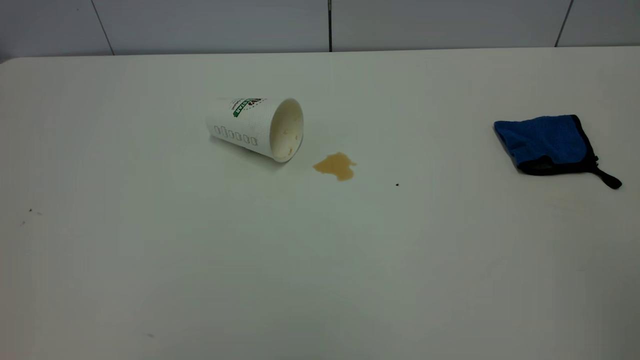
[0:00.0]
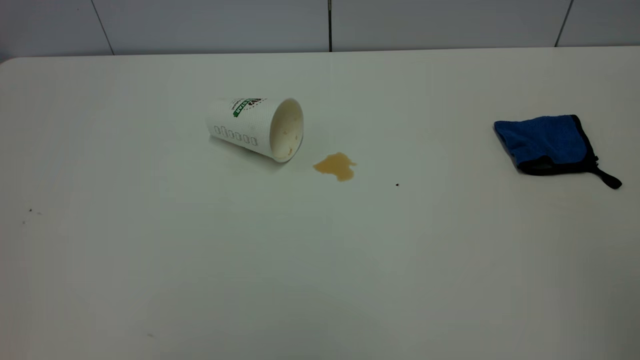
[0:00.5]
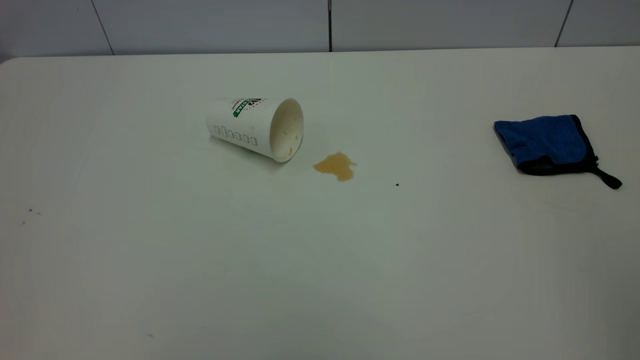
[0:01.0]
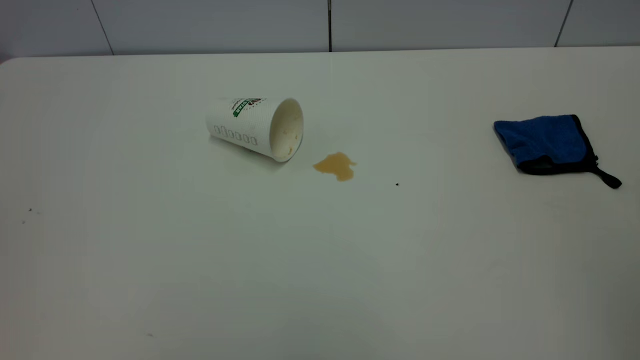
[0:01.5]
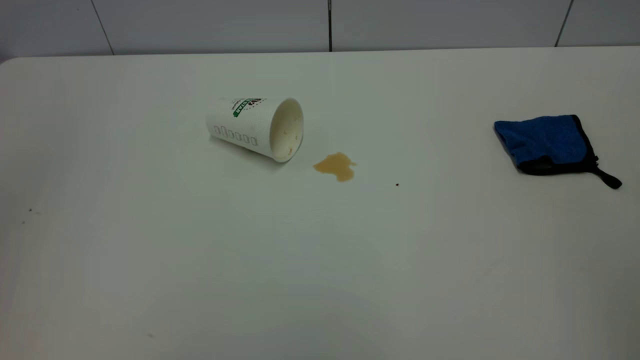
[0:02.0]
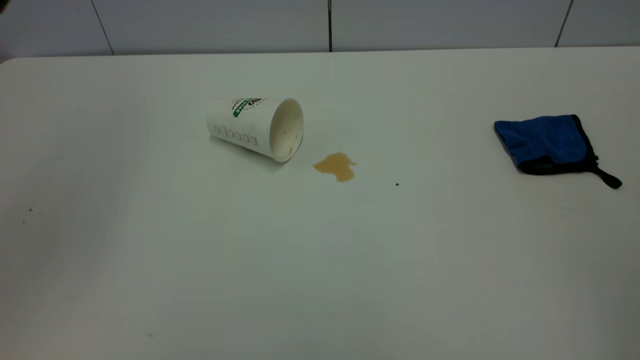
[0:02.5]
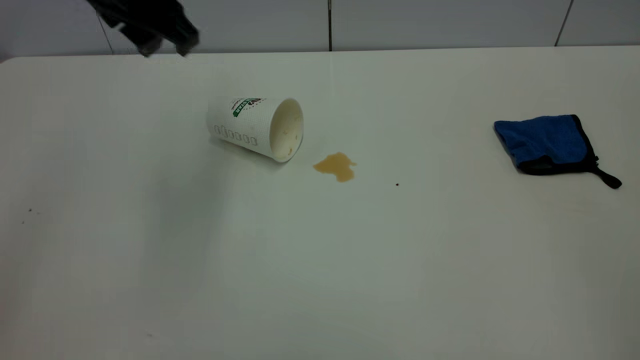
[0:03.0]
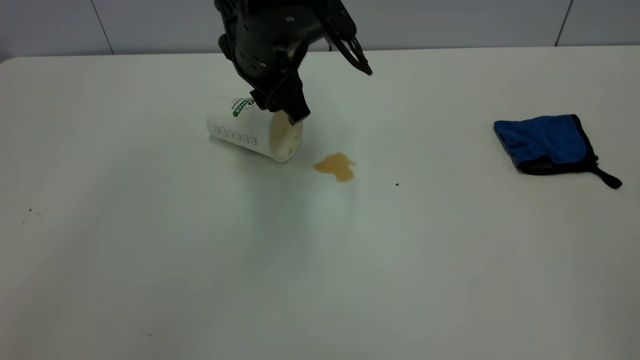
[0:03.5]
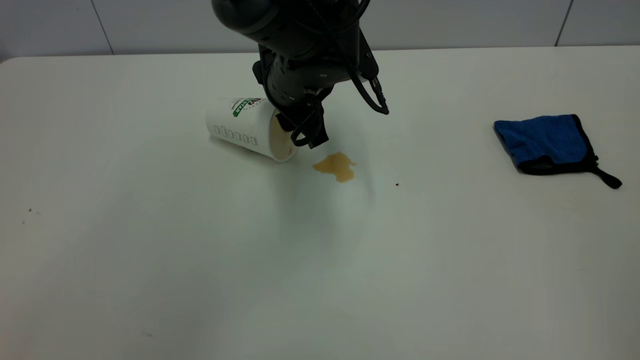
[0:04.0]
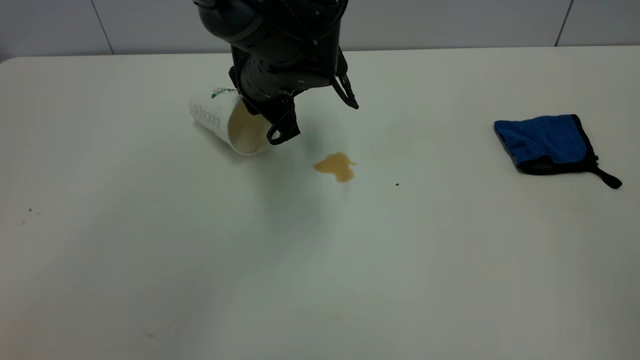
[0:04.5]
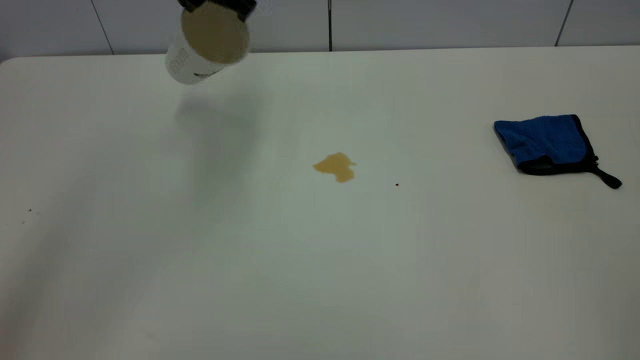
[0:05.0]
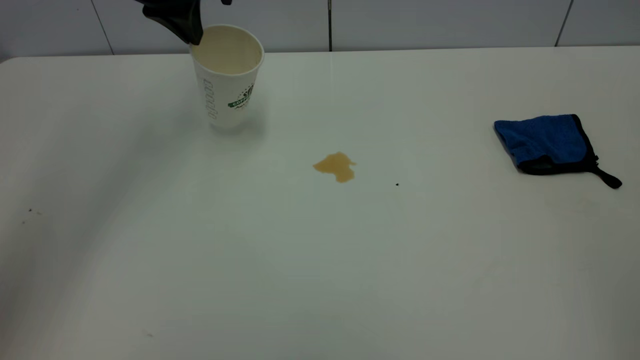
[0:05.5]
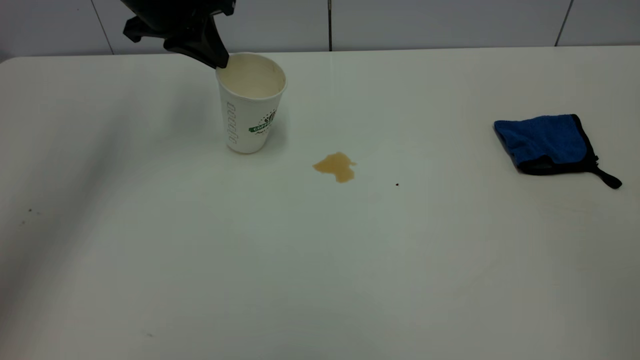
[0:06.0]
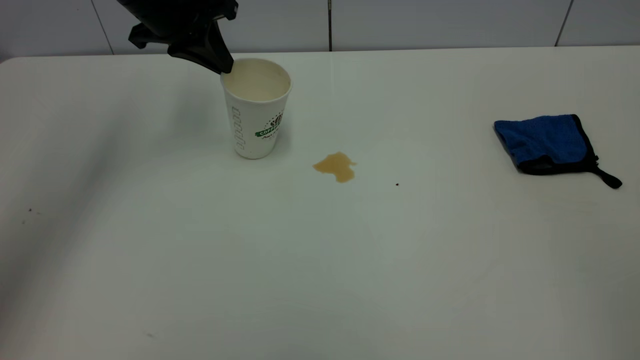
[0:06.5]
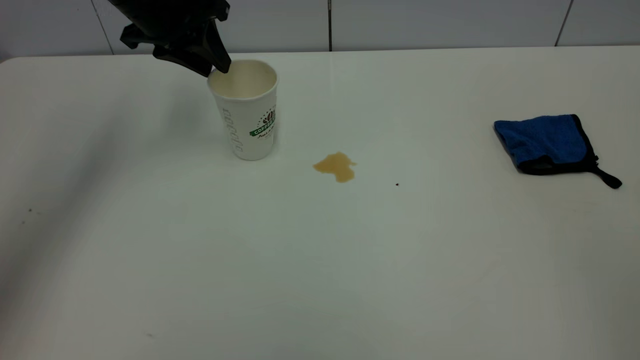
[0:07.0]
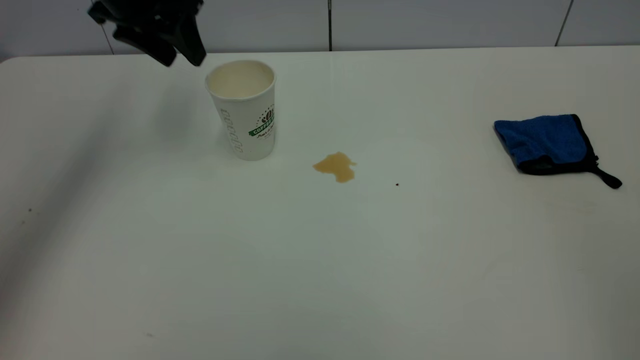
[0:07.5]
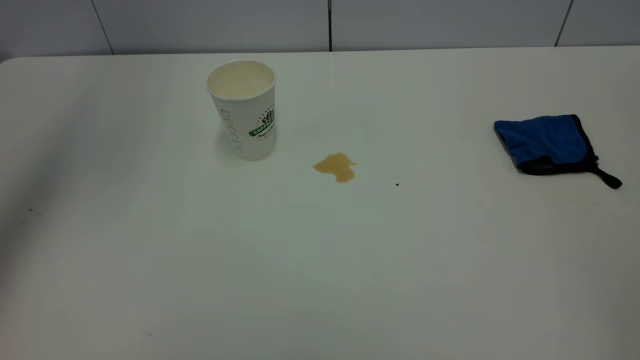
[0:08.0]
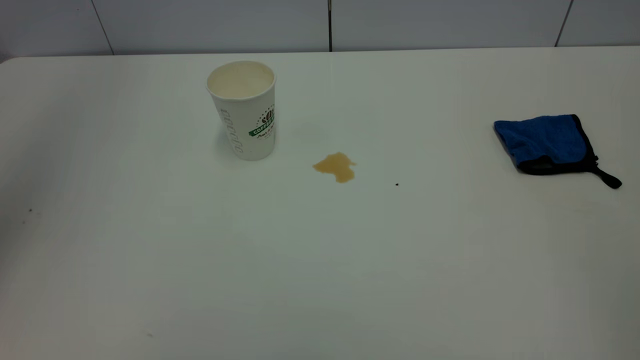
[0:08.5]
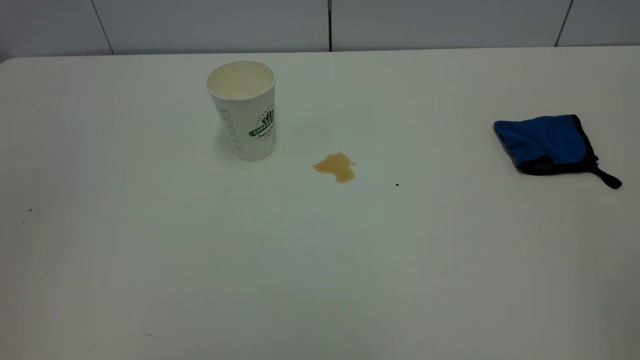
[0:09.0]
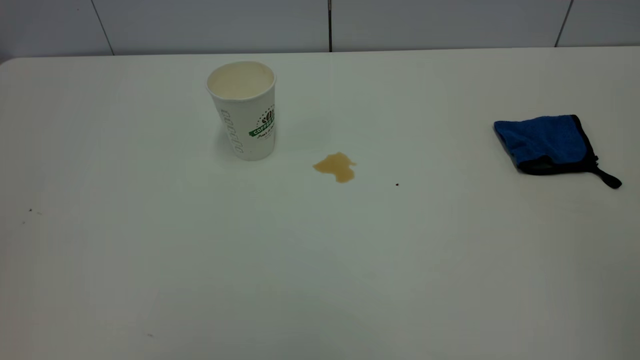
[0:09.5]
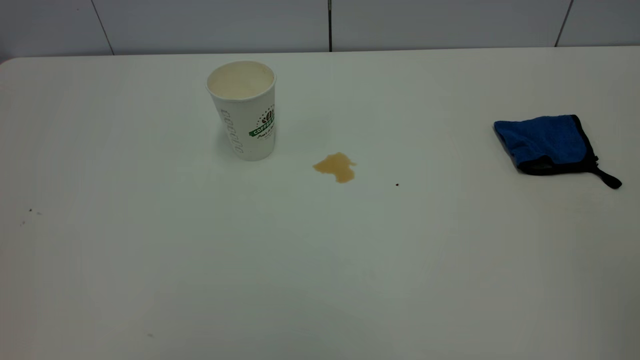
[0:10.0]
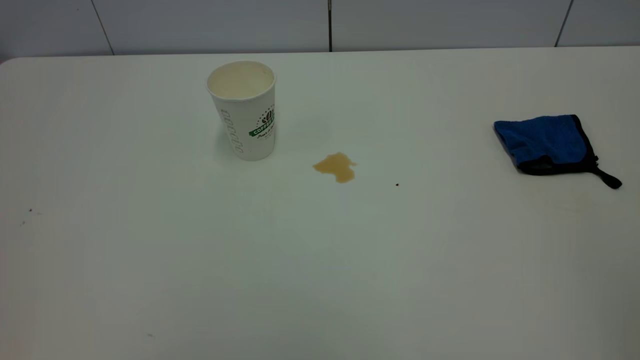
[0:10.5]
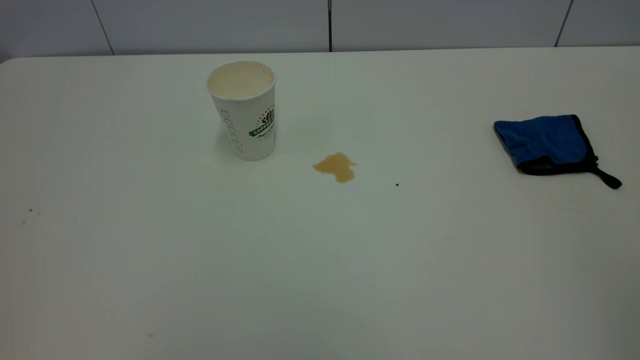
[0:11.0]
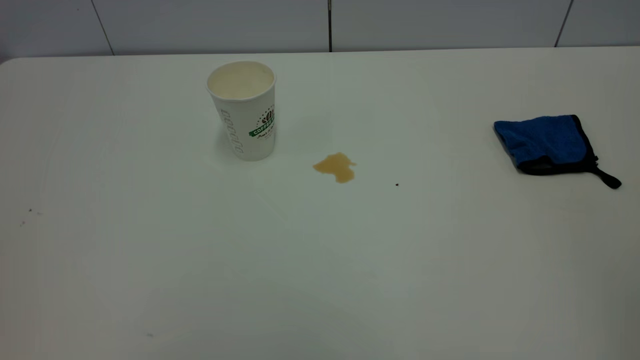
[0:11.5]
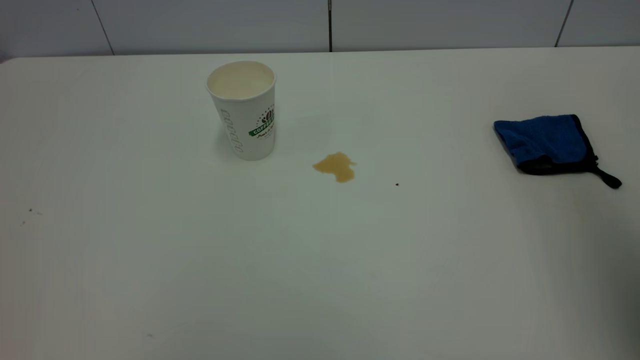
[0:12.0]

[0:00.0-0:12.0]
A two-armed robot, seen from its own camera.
Task of the whole recording: the left gripper pick up the fallen cup and place it upright, the right gripper grasp the blue rag and wipe the tea stain on the table, the right gripper put the blue rag back in its original position.
Step, 0:00.0 to 0:07.0: Stand the paper cup upright.
0:02.0 to 0:04.0: The left gripper travels to the right, downward and forward by about 50 cm.
0:04.0 to 0:06.0: The left gripper is displaced to the left, forward and upward by approximately 20 cm, and closes up.
0:06.0 to 0:08.0: The left gripper goes some 20 cm upward and backward, and opens its fingers.
0:08.0 to 0:10.0: The left gripper moves backward, approximately 40 cm.
0:10.0 to 0:12.0: The right gripper travels forward by roughly 20 cm, and opens up.

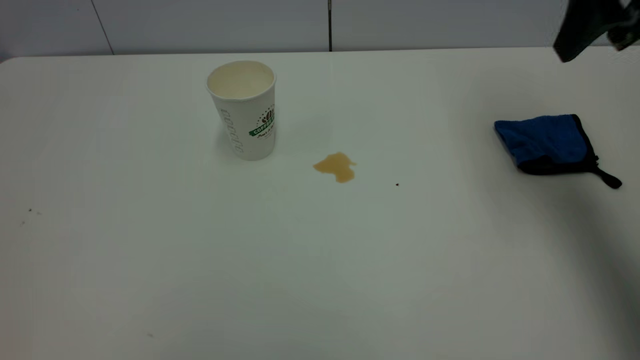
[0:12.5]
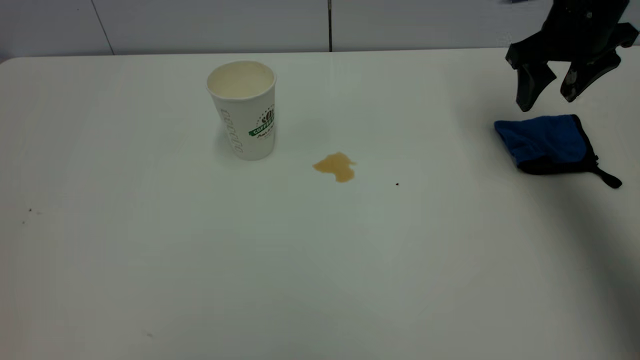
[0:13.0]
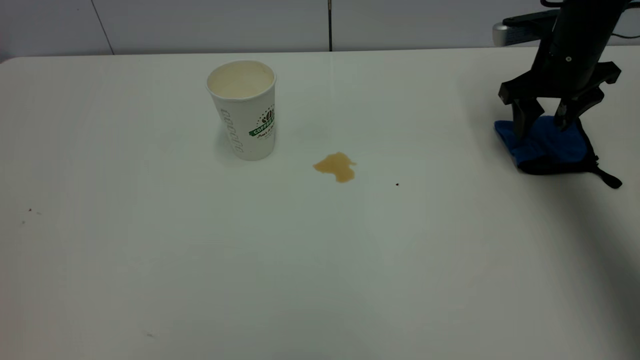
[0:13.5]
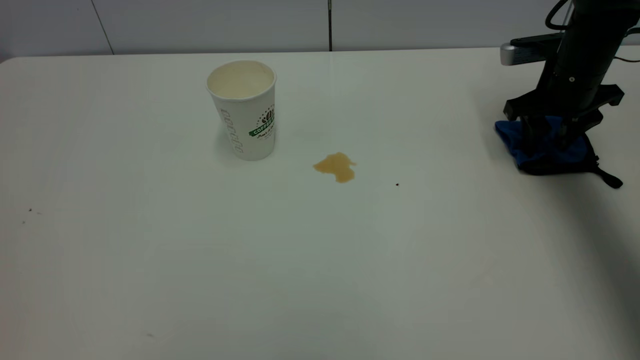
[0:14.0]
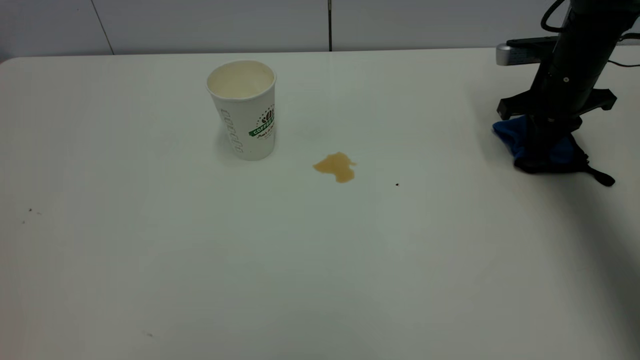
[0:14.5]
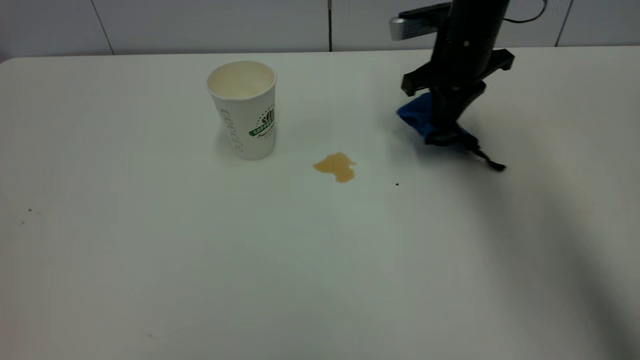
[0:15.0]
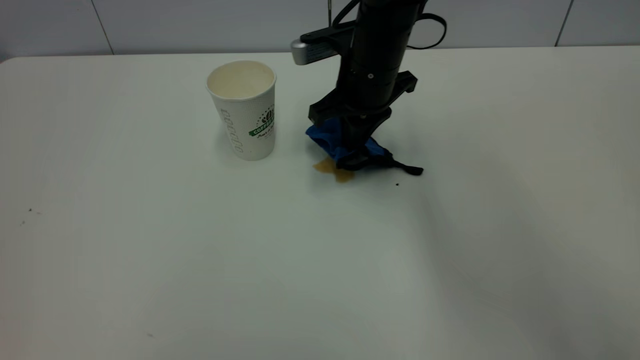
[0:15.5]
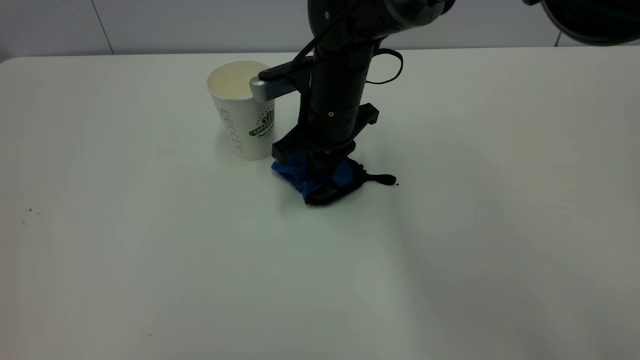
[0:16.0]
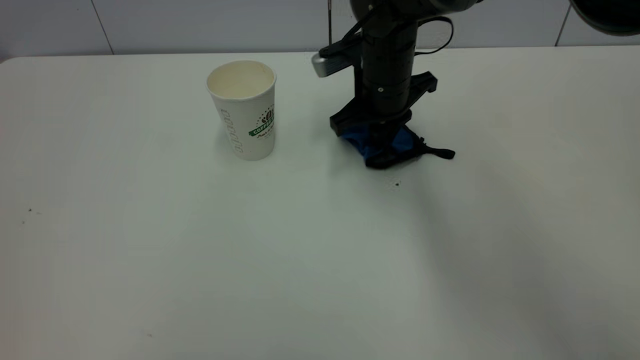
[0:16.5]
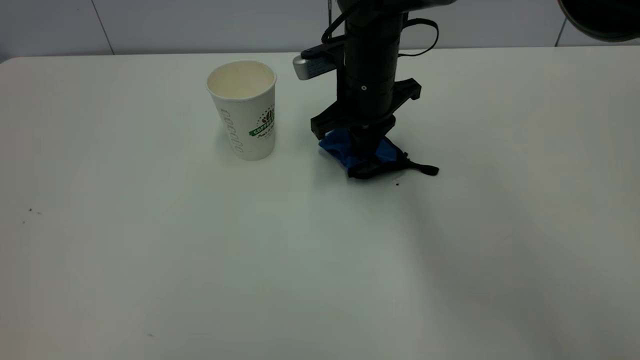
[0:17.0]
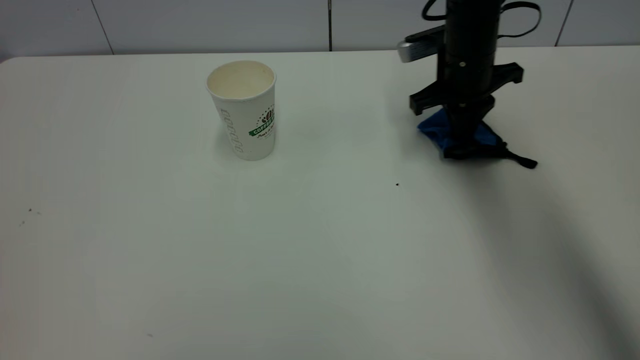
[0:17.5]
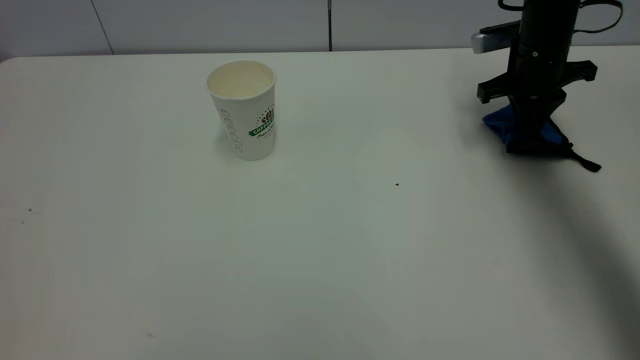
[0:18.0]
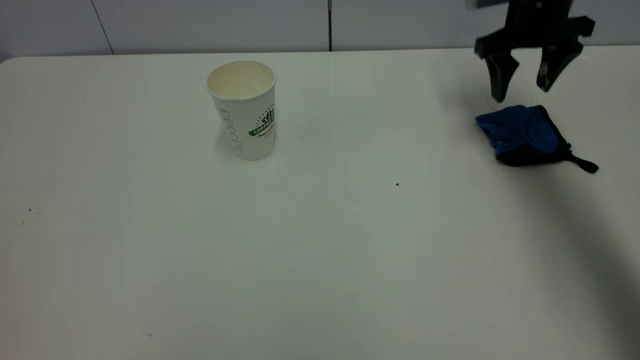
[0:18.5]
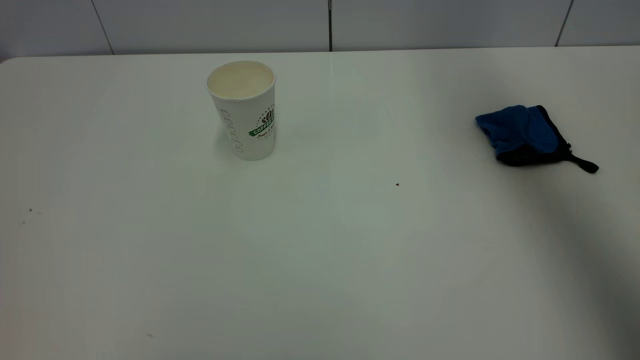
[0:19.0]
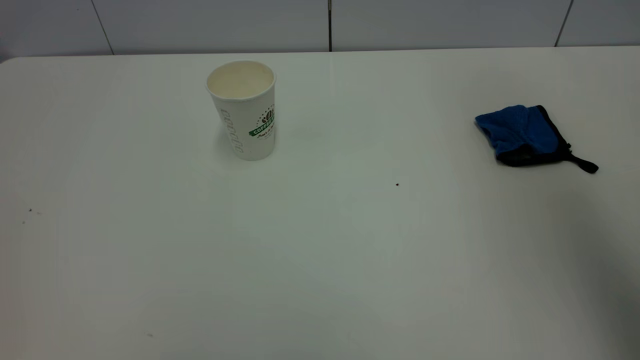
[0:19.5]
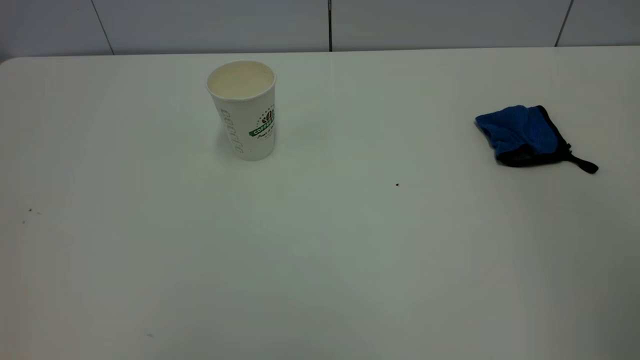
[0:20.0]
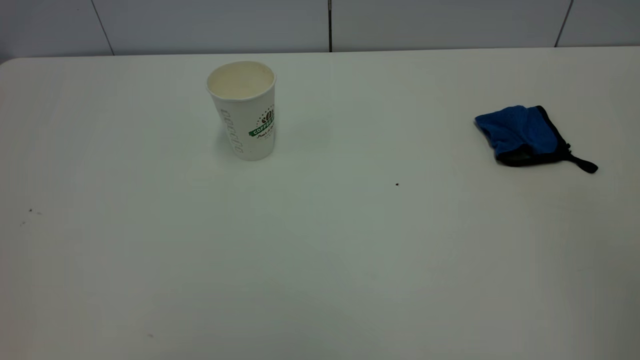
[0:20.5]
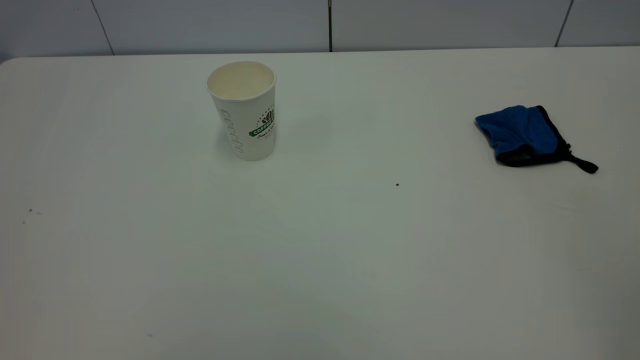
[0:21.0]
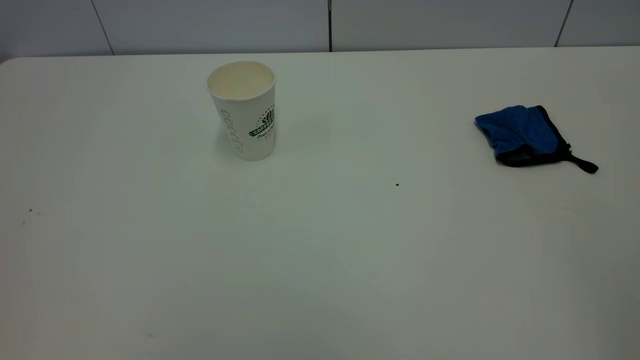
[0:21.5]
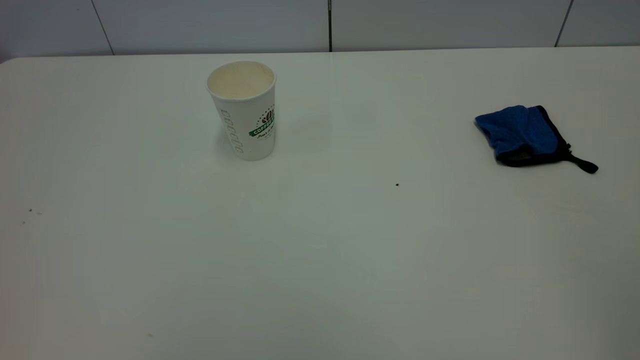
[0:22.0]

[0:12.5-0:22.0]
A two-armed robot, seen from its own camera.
Task of the whole recording: the left gripper pick up the fallen cup and place it upright, the right gripper grasp the blue rag and wipe the tea stain on the table, the right gripper put the blue rag back in its original position.
Step, 0:12.5 to 0:18.5: Wipe the stains off the table with a rag.
0:12.5 to 0:14.5: The right gripper travels downward and forward by about 20 cm, and closes its fingers.
0:14.5 to 0:16.5: The right gripper shifts about 20 cm to the left.
0:16.5 to 0:18.0: The right gripper moves to the right, approximately 20 cm.
0:18.0 to 0:20.0: The right gripper travels backward and upward by roughly 50 cm, and opens.
